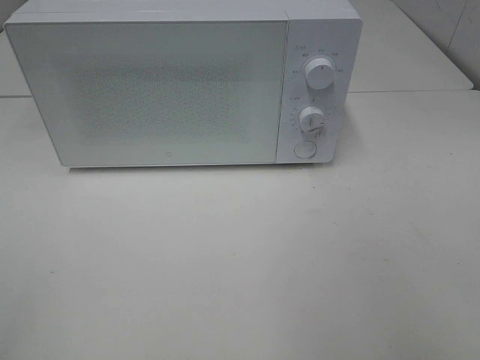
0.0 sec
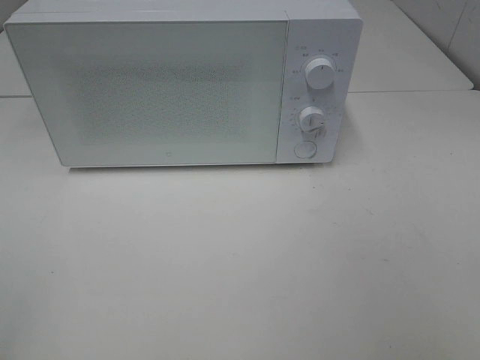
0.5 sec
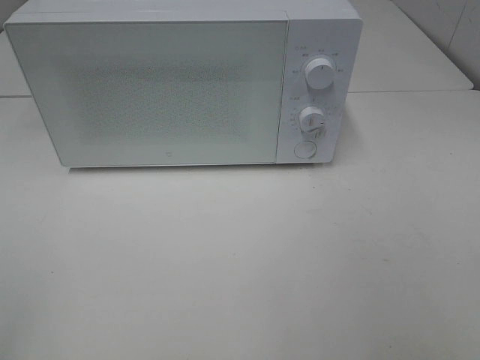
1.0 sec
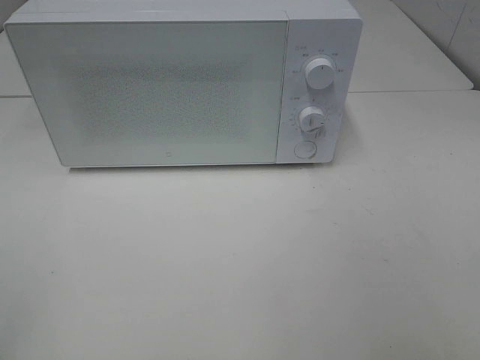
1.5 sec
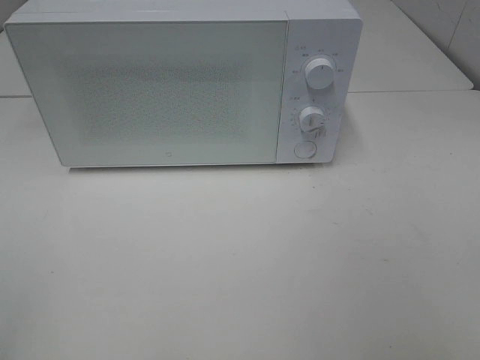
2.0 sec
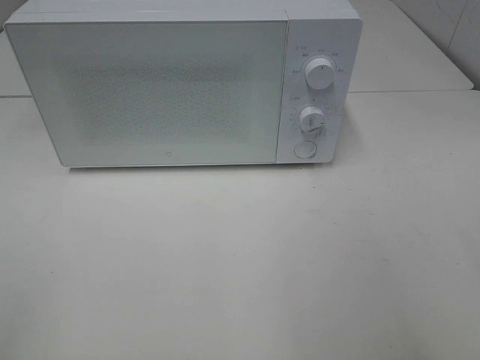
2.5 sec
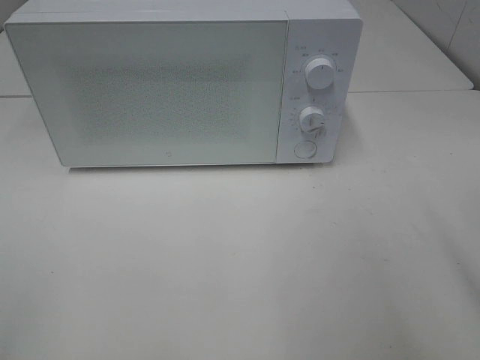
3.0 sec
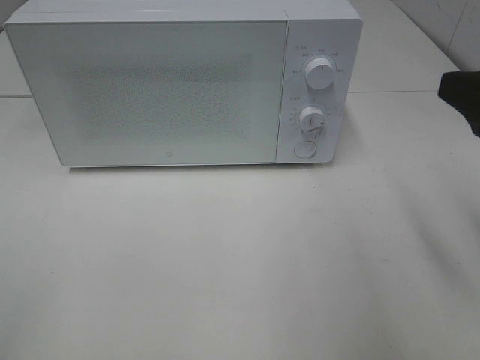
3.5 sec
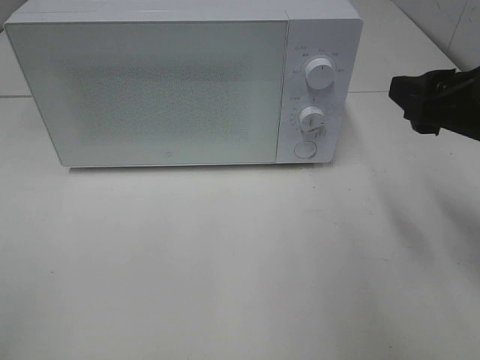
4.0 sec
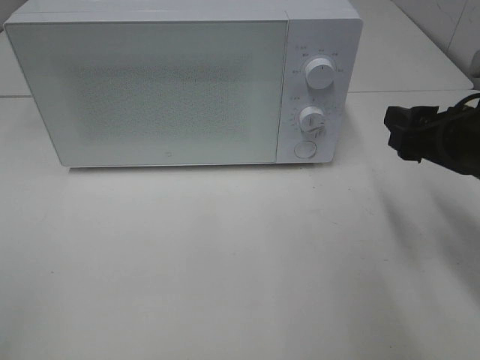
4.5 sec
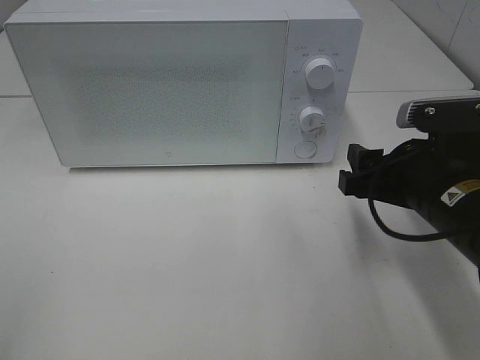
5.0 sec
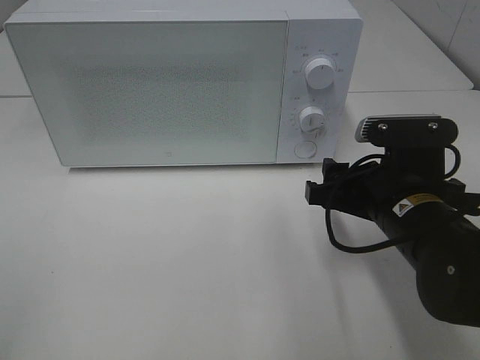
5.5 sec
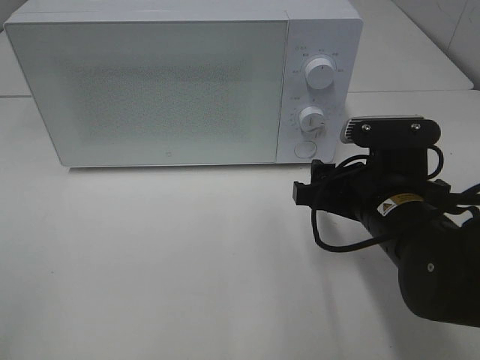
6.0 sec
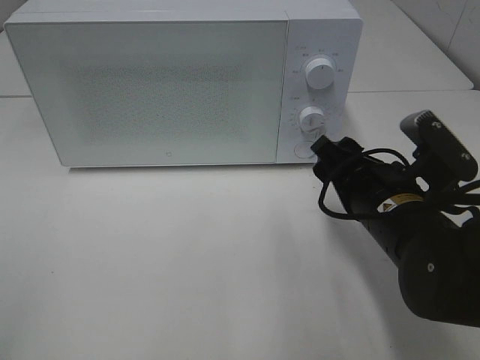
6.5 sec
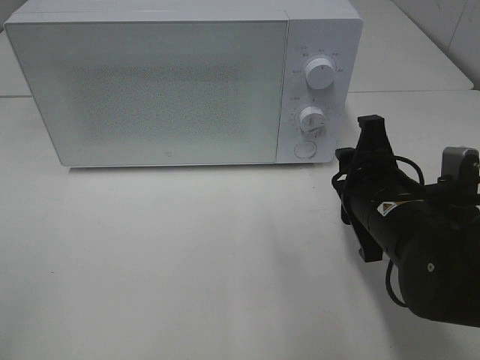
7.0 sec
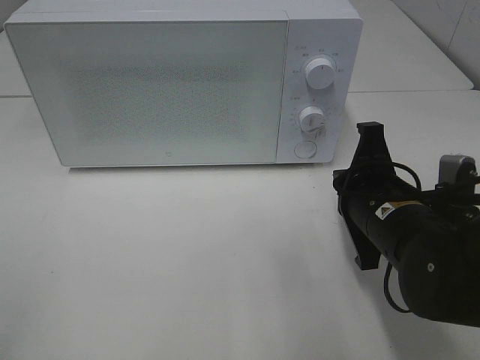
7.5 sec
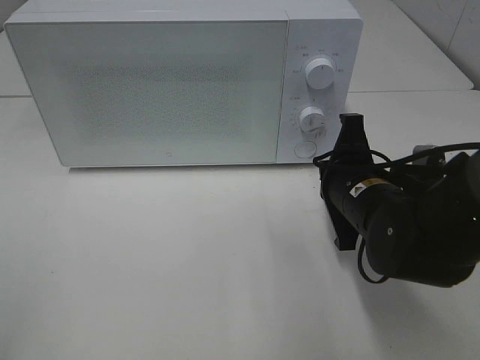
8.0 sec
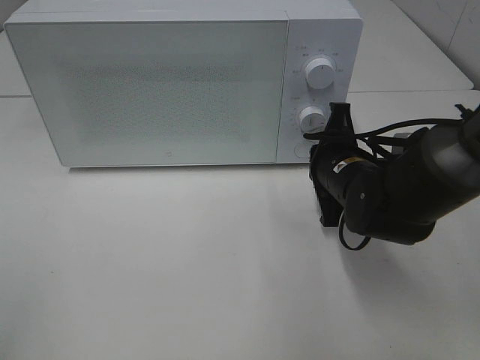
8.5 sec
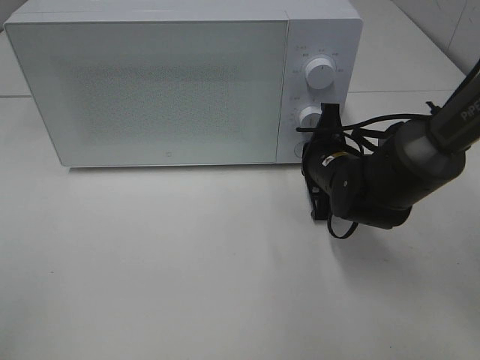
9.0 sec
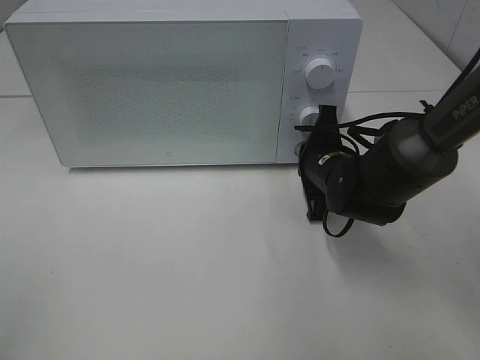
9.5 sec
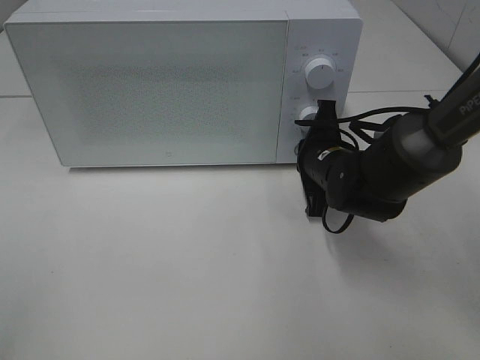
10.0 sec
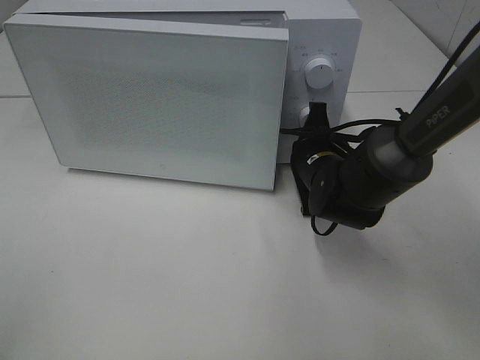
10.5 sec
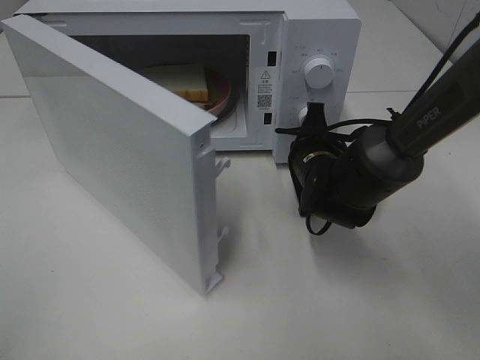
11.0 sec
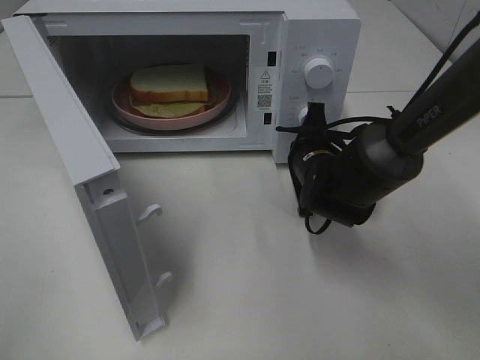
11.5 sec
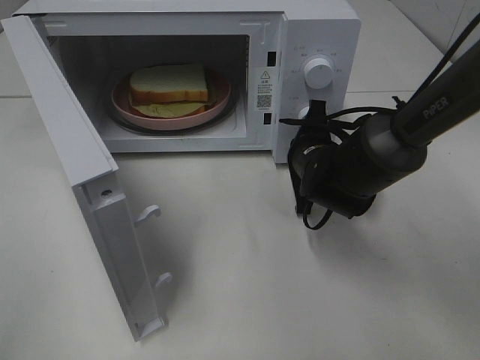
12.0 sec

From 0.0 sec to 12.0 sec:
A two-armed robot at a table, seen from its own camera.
Task of the whole recording: Heat Sandwich.
From 2.0 sec to 4.0 sec: The right gripper is displaced forward by some 20 cm.
From 4.0 sec to 6.0 sec: The right gripper moves downward and to the left, about 15 cm.
From 6.0 sec to 8.0 sec: The right gripper closes its fingers.
From 8.0 sec to 10.0 sec: The right gripper shifts some 10 cm forward.

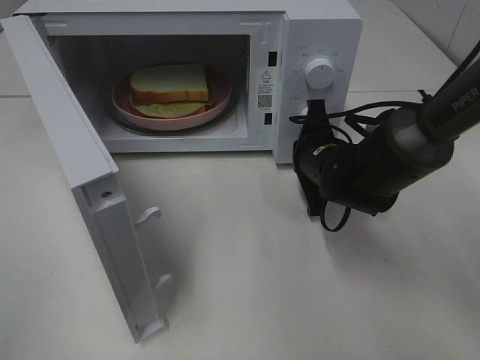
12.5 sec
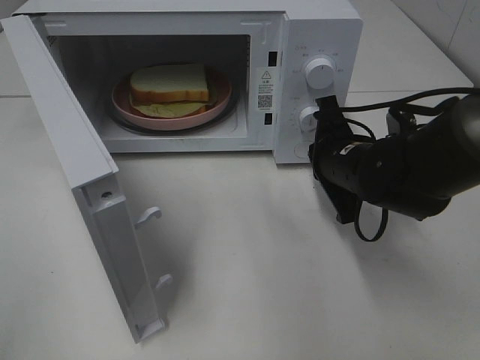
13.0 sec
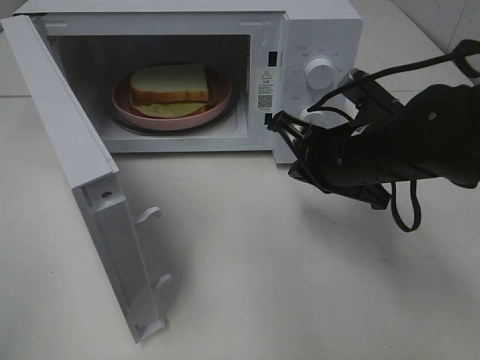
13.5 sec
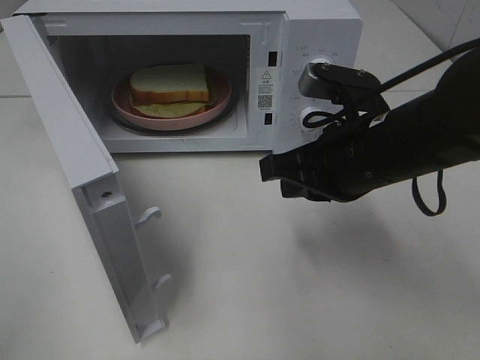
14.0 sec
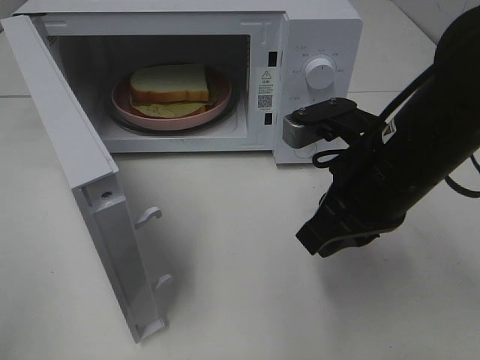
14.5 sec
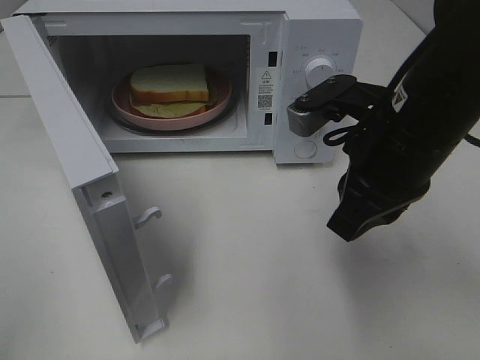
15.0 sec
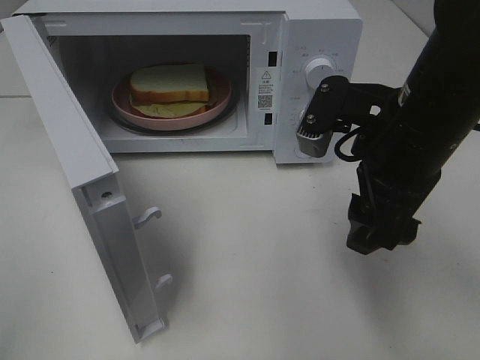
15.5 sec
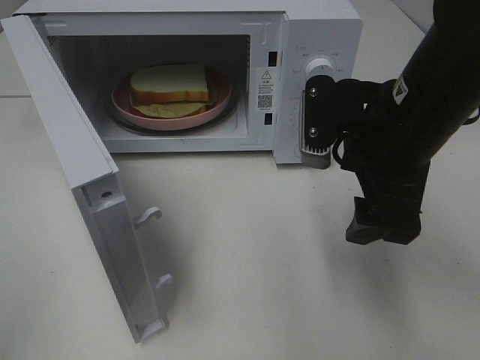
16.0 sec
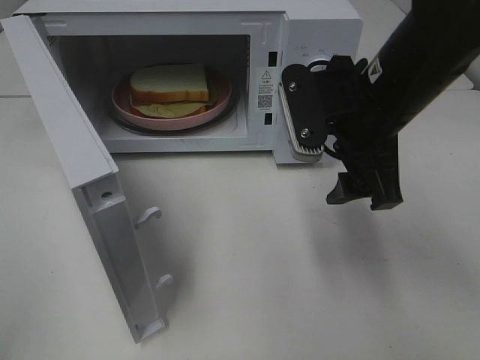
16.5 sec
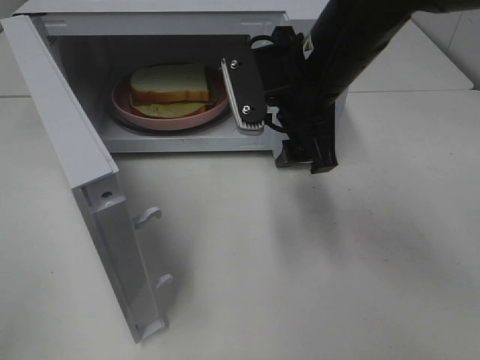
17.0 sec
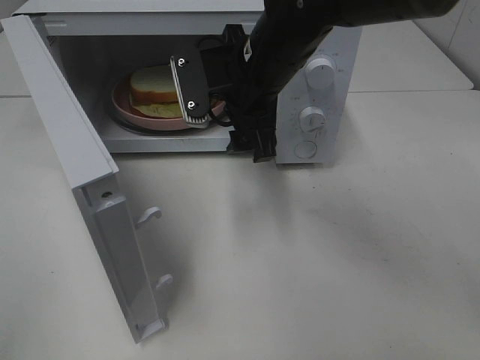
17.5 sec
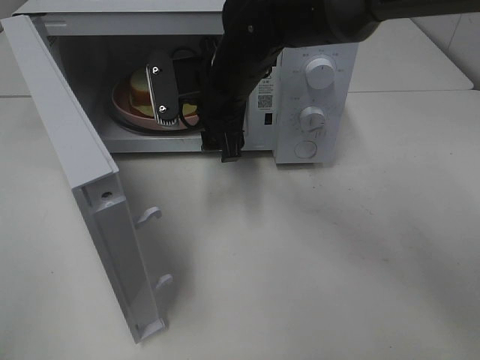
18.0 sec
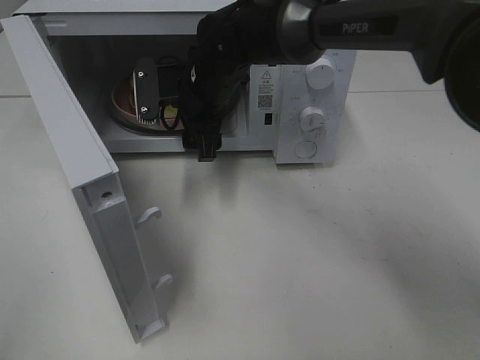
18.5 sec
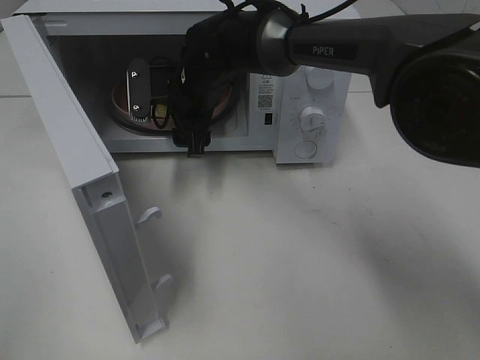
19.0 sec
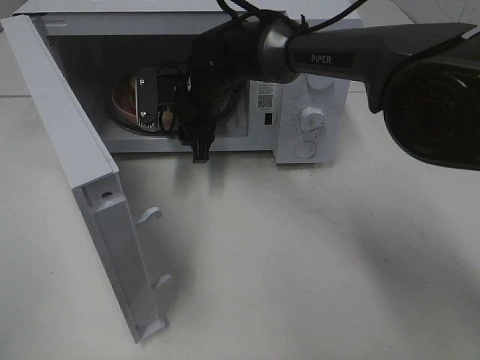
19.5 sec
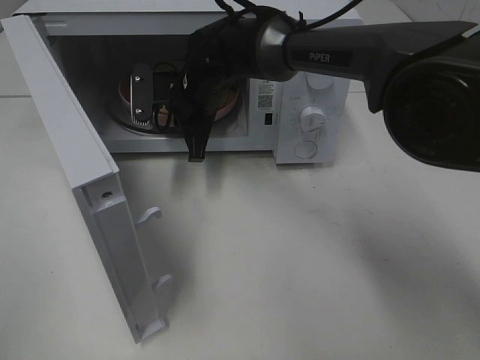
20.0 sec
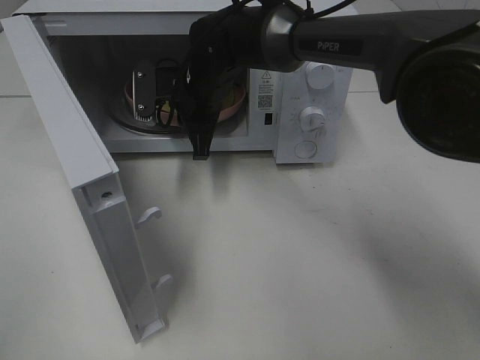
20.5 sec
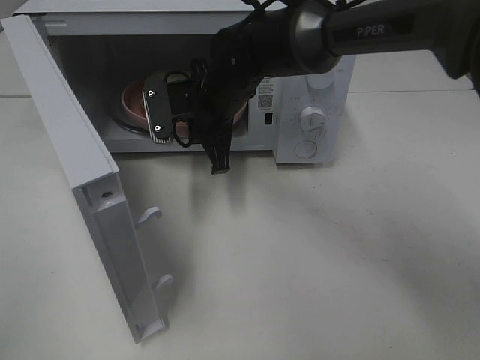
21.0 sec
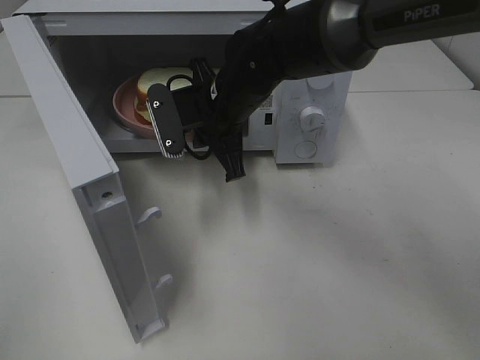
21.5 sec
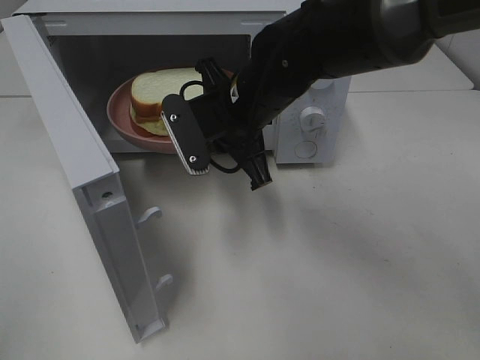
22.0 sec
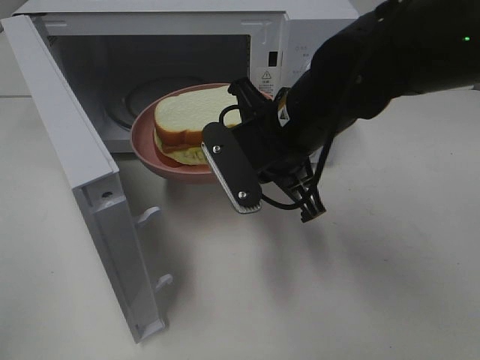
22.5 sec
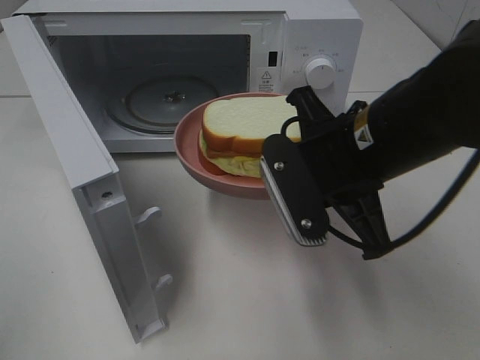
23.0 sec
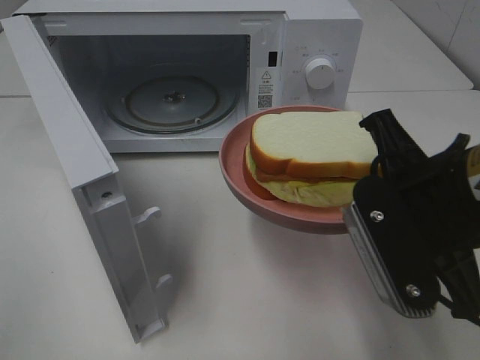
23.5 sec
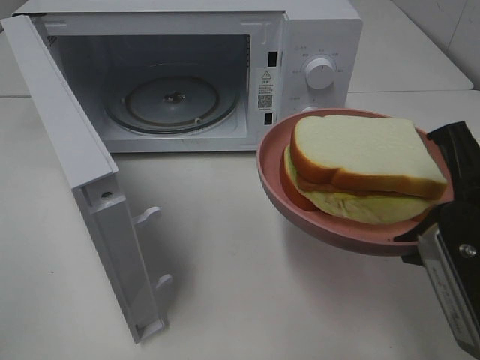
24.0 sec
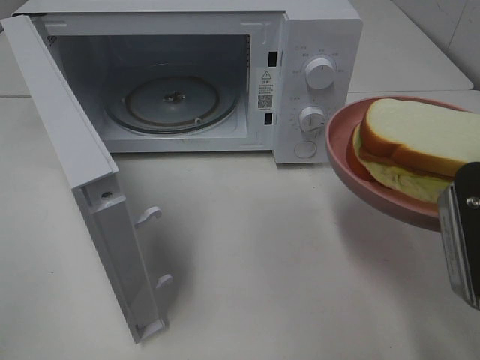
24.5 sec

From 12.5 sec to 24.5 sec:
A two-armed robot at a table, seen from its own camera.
Task of the whole recording: Heat Sandwich.
Step, from 13.5 sec to 19.5 sec: Right hand: grab the plate with the sandwich.
From 12.5 sec to 14.5 sec: The right gripper travels backward and upward by about 15 cm.
From 14.5 sec to 16.5 sec: The right gripper ends up some 5 cm from where it was, and opens.
From 16.5 sec to 18.5 sec: The right gripper shifts approximately 20 cm to the left, forward and downward.
From 18.5 sec to 20.5 sec: The right gripper closes its fingers.
From 20.5 sec to 22.5 sec: The right gripper goes some 20 cm backward and to the right.
From 22.5 sec to 24.5 sec: The right gripper shifts approximately 20 cm to the right and backward.

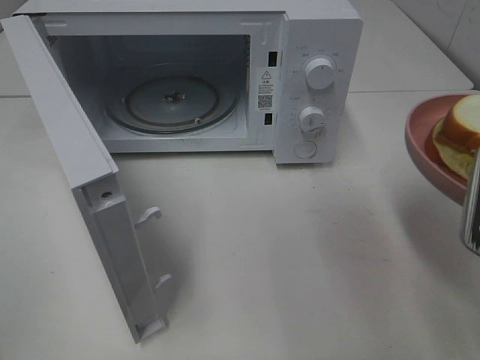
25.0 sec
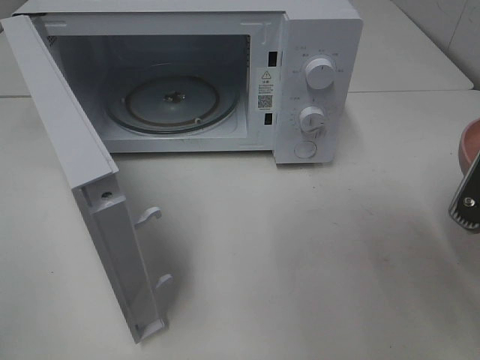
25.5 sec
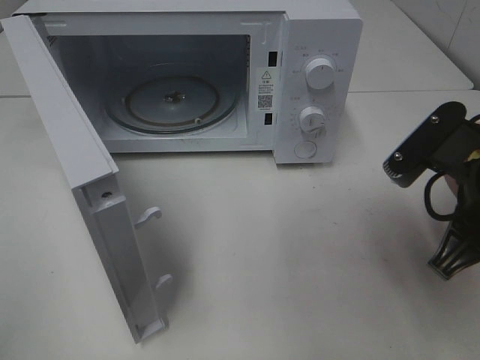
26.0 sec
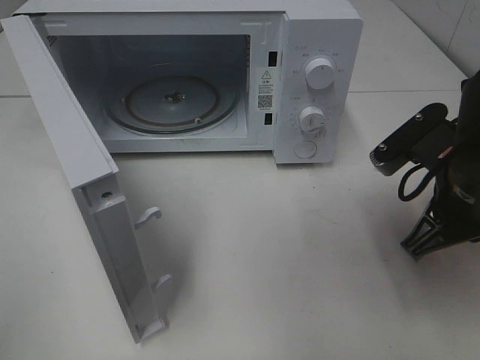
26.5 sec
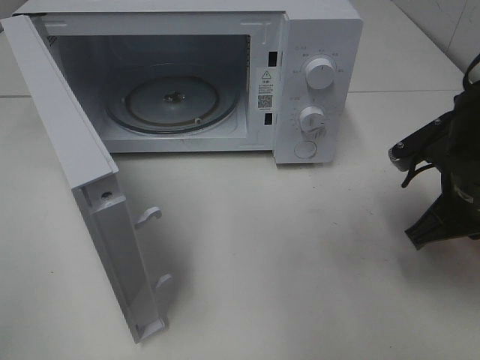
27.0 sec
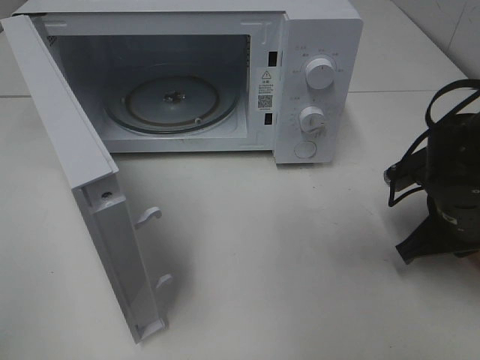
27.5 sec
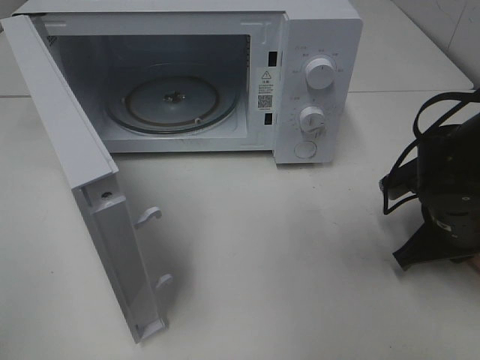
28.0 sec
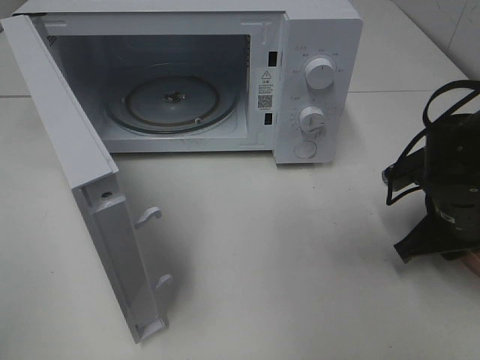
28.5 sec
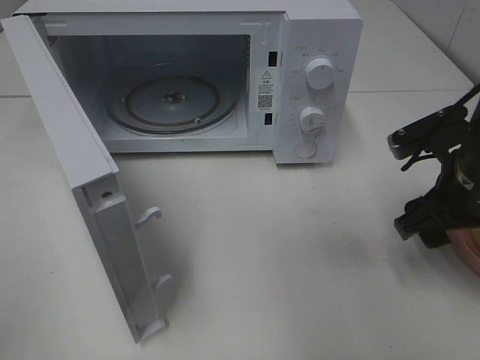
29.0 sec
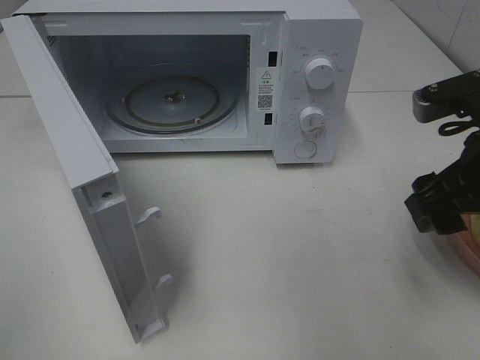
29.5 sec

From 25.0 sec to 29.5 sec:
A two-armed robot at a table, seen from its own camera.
Task of the whole recording: Heat Sandwich.
From 25.0 sec to 27.0 sec: The right gripper moves forward and downward, approximately 15 cm.
From 27.0 sec to 29.5 sec: The right gripper shifts some 10 cm upward, and opens up.
